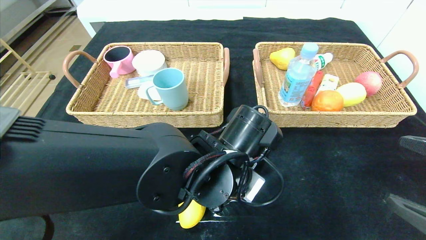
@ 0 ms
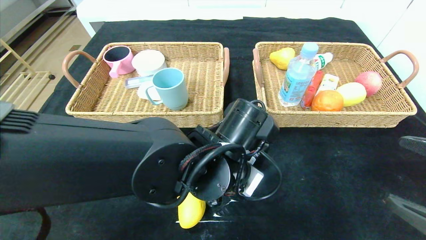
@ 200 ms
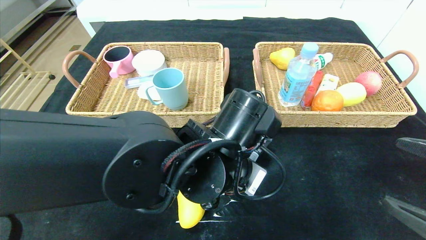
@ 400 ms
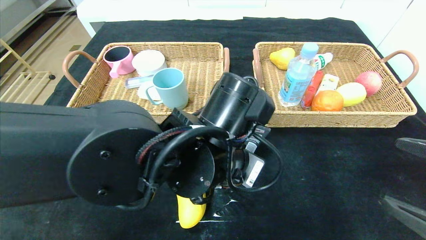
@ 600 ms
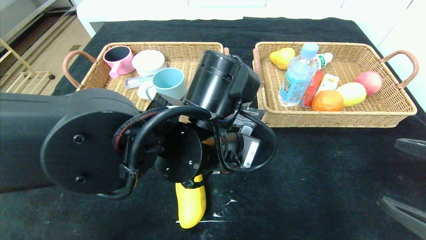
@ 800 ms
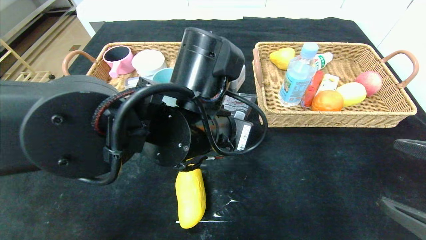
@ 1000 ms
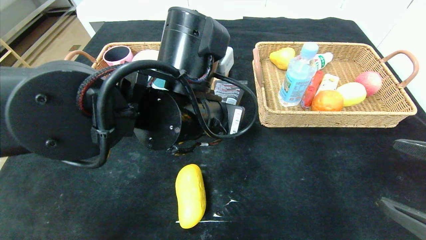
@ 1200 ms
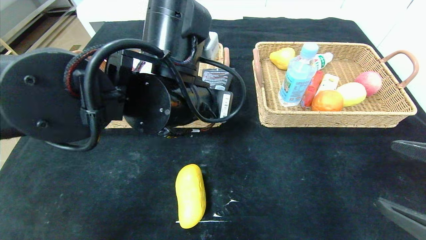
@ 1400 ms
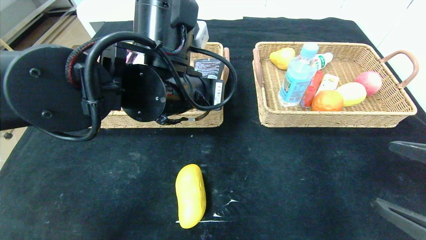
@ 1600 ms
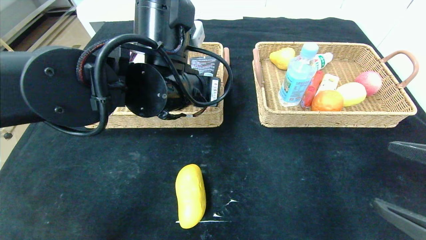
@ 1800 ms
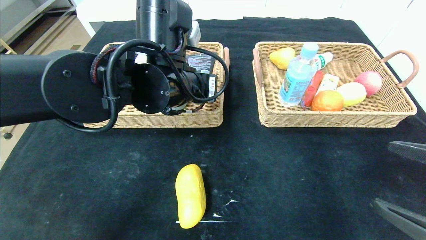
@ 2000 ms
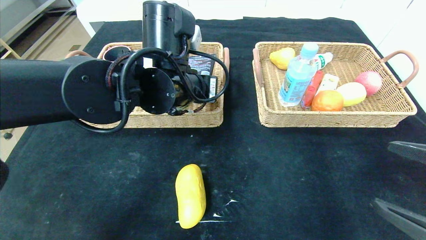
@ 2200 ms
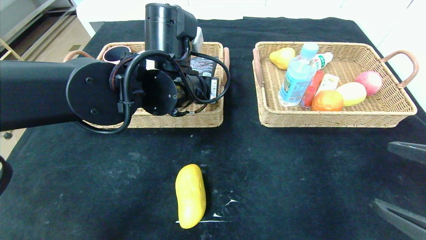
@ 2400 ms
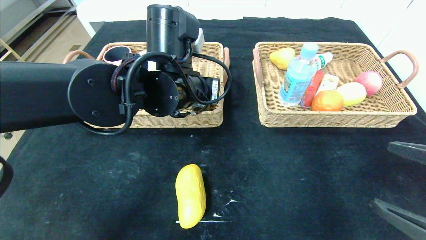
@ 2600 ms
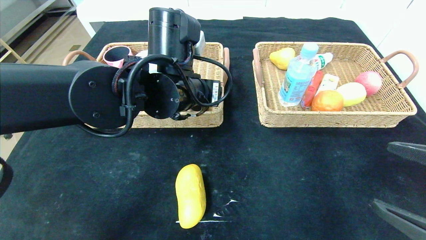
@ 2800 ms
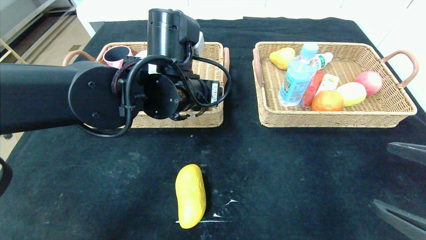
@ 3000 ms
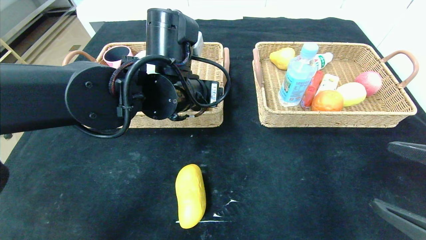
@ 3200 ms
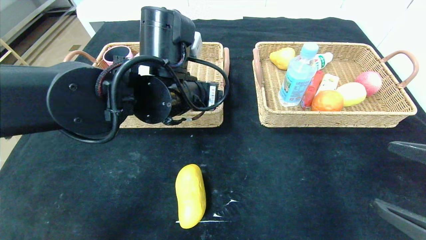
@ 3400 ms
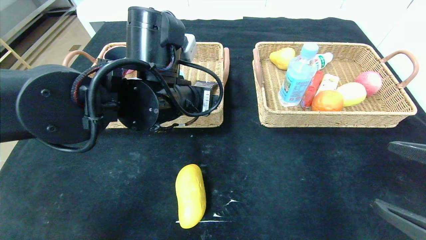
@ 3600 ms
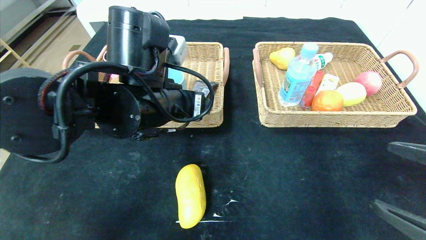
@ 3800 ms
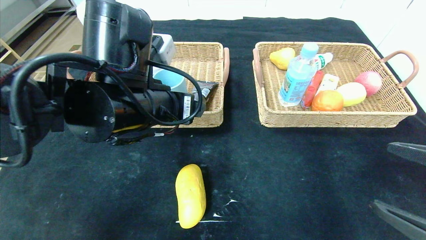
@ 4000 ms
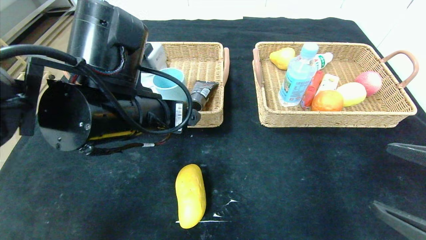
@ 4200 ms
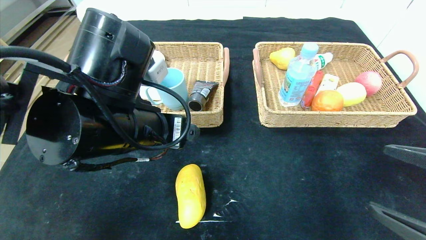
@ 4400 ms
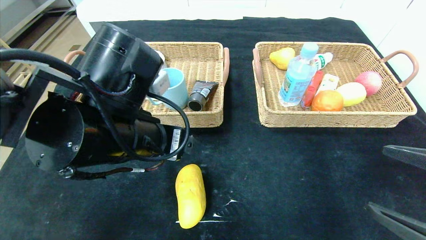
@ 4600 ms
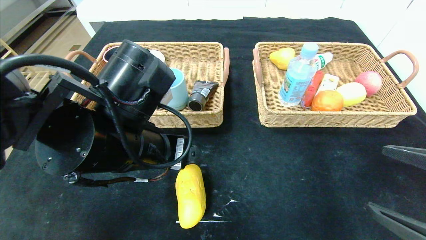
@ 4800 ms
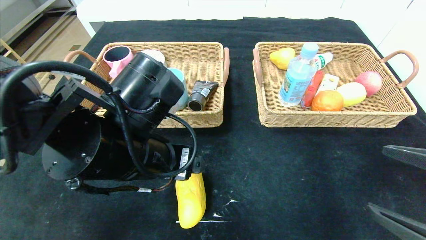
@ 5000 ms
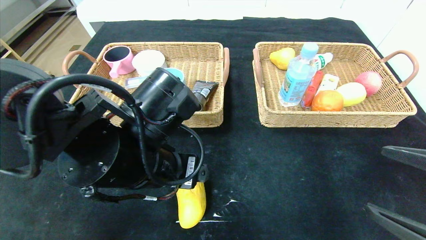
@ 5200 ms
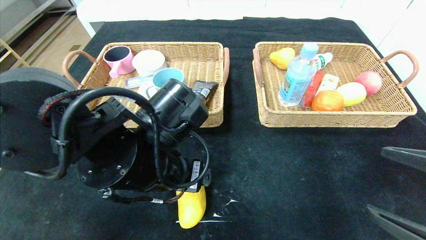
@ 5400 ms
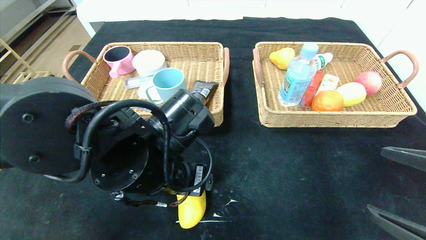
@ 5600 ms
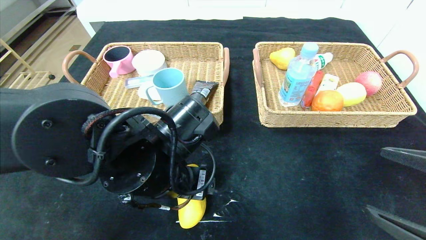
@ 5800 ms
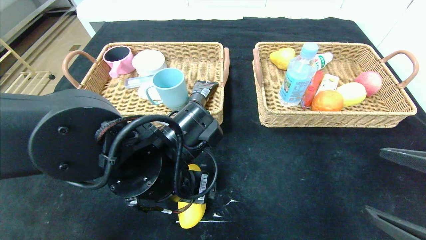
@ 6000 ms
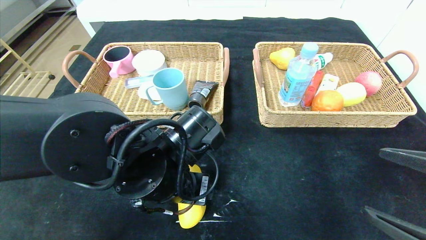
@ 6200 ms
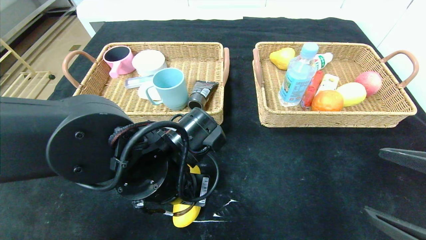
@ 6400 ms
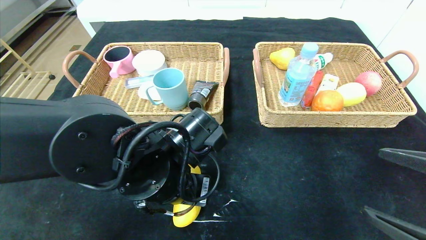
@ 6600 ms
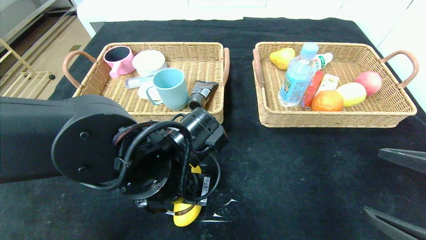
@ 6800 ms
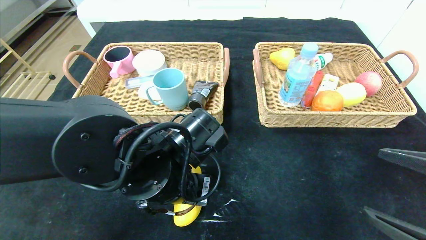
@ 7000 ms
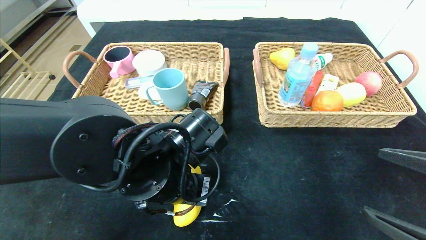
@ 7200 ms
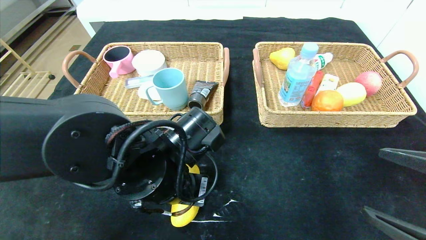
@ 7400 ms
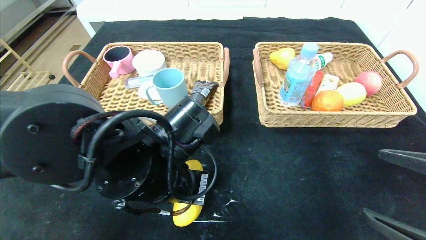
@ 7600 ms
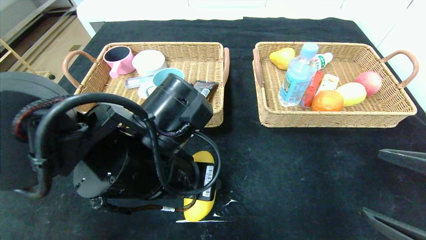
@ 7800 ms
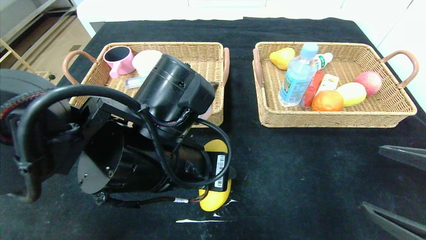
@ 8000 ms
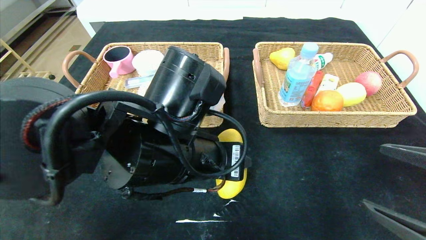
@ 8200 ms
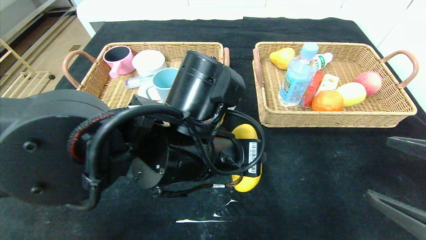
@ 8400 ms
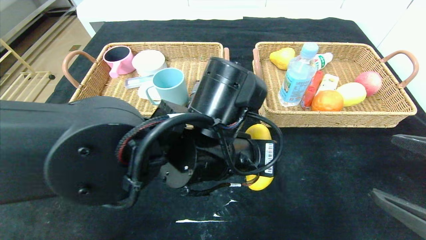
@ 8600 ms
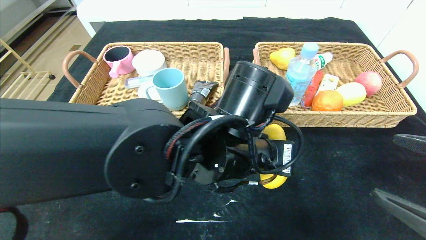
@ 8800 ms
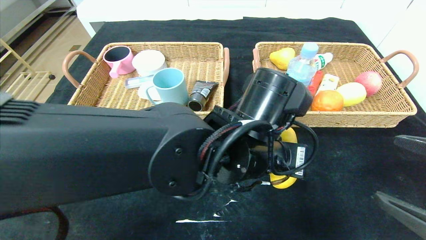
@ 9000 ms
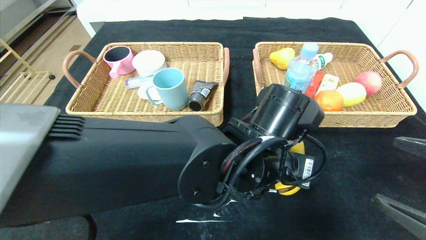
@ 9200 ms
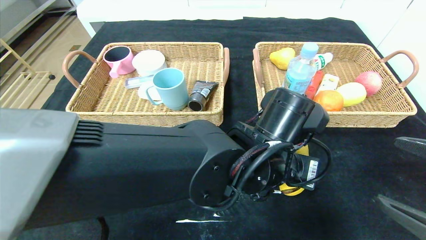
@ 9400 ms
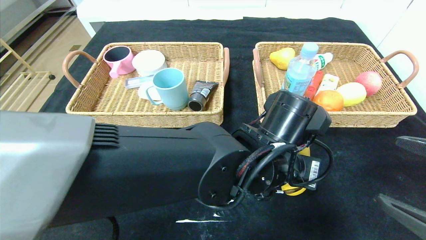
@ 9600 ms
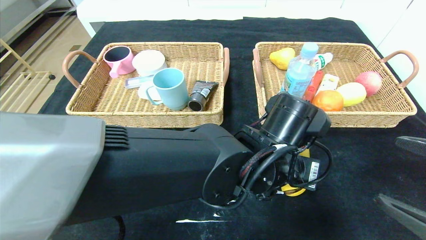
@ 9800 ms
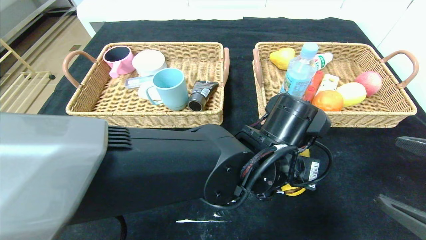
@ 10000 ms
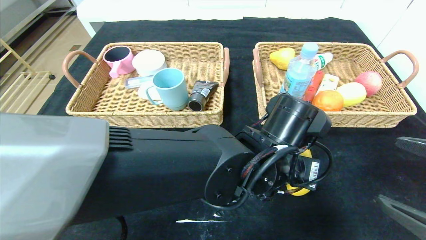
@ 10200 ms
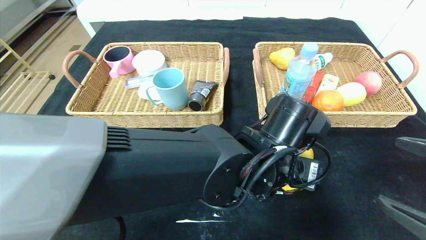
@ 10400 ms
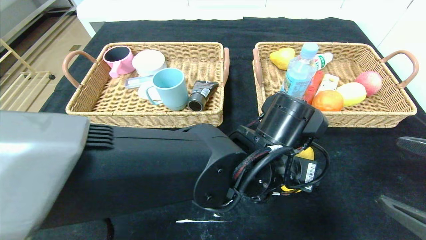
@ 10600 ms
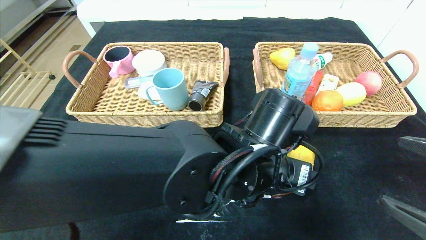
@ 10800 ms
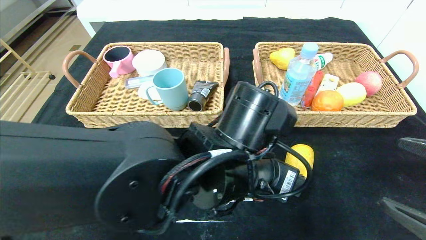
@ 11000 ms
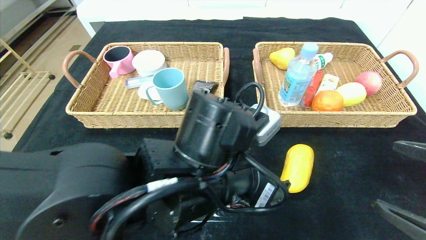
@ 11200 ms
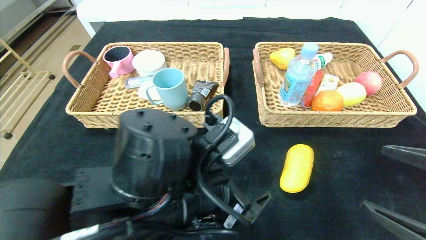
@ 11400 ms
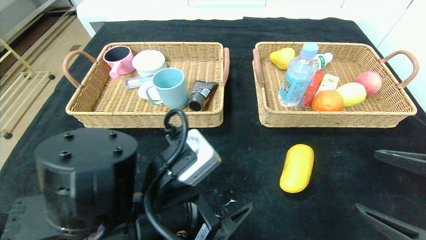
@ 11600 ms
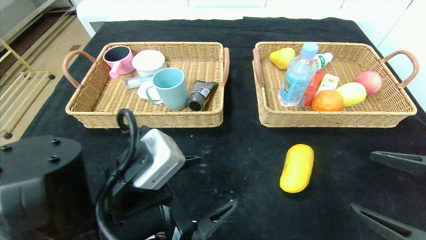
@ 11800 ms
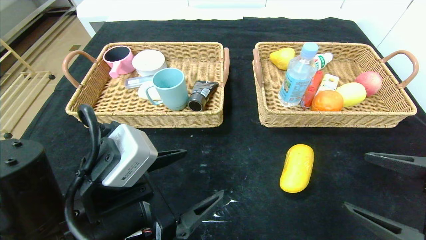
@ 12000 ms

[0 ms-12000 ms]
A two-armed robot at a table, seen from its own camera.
Step, 0 ms to 3000 ms: Grasp the soft cleanser and put it in the left basket.
Step, 3200 ms to 11000 ms: Place the mango in the center of the table.
0 ms to 1600 ms: The left gripper shifts roughly 15 cm upward and to the left.
1600 ms to 3000 ms: The left gripper opens its fingers.
3000 ms to 4400 ms: The left gripper travels backward by about 10 cm.
4400 ms to 6000 ms: The left gripper goes roughly 10 cm downward.
6000 ms to 7600 ms: The left gripper closes its fingers.
7600 ms to 9000 ms: The left gripper goes about 15 cm to the right.
10400 ms to 12000 ms: The left gripper heads to the left and backward, covering roughly 25 cm.

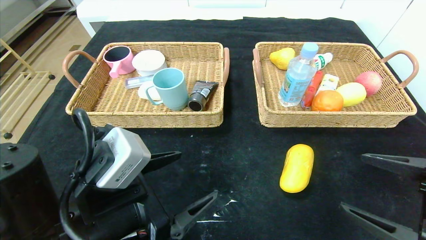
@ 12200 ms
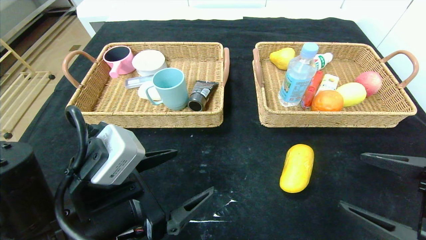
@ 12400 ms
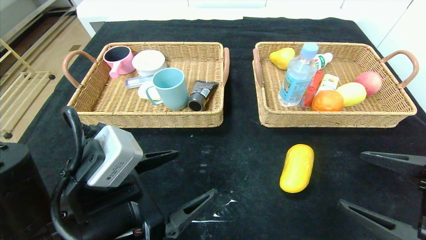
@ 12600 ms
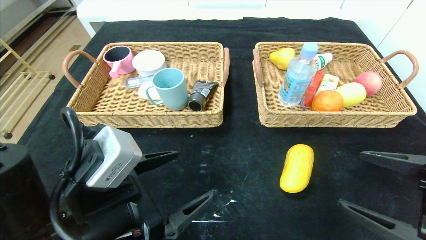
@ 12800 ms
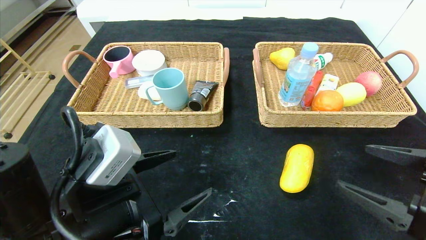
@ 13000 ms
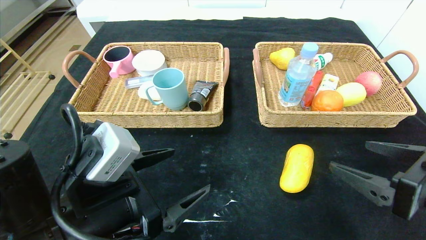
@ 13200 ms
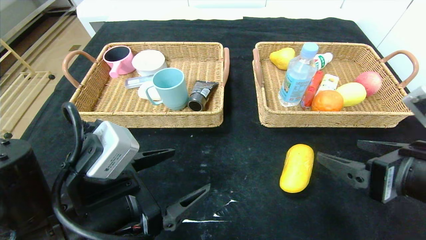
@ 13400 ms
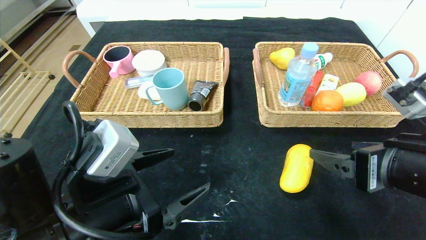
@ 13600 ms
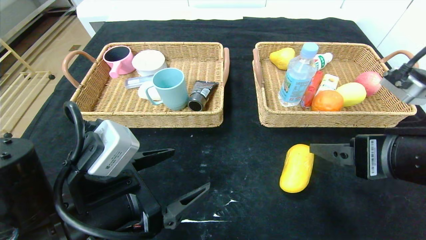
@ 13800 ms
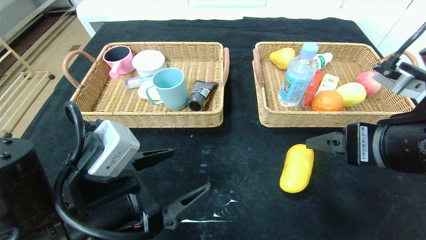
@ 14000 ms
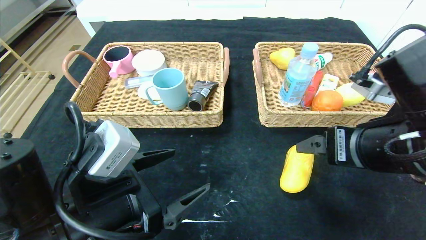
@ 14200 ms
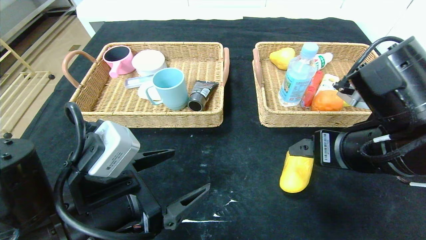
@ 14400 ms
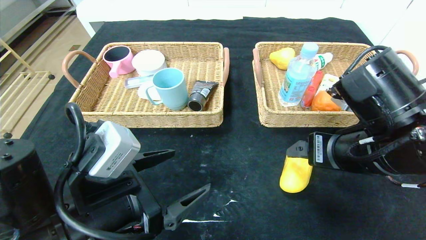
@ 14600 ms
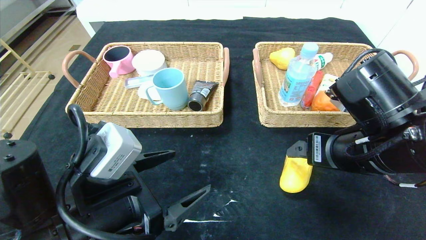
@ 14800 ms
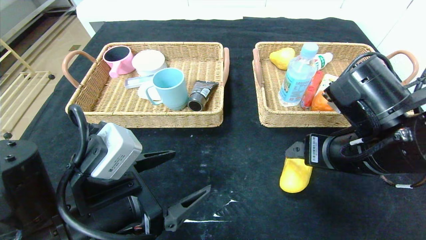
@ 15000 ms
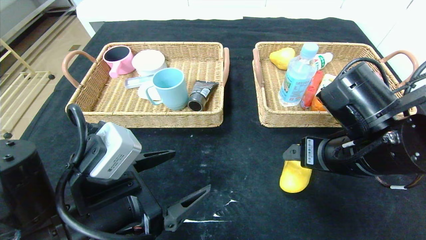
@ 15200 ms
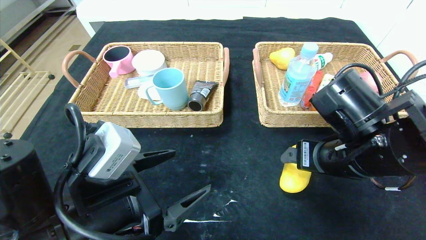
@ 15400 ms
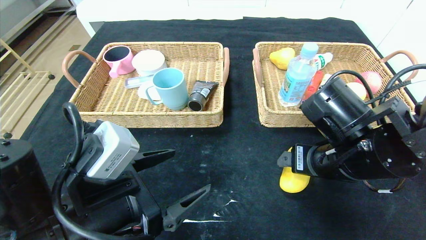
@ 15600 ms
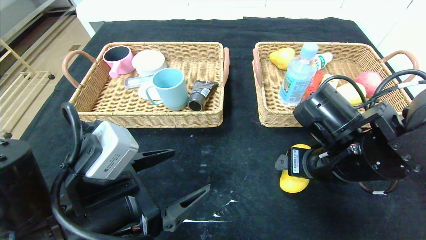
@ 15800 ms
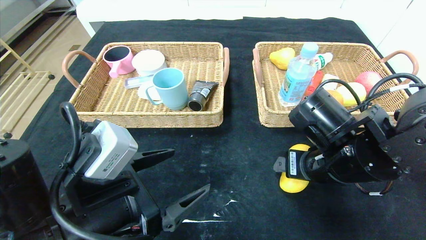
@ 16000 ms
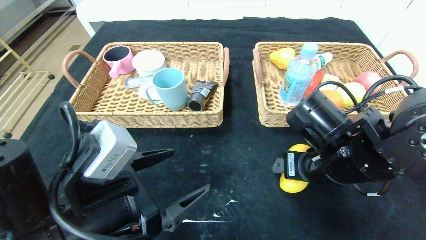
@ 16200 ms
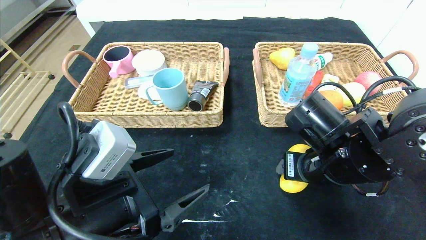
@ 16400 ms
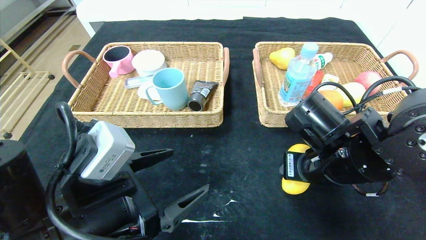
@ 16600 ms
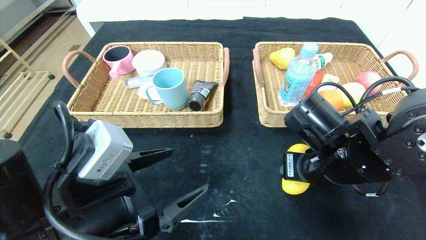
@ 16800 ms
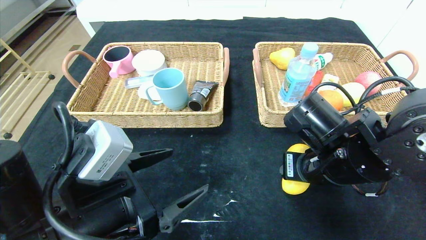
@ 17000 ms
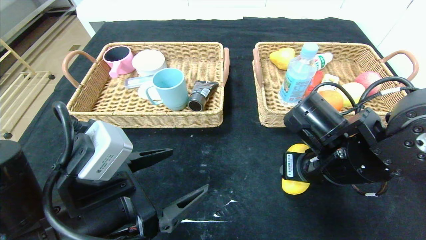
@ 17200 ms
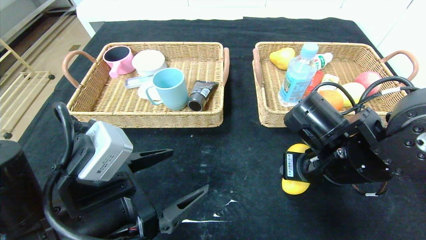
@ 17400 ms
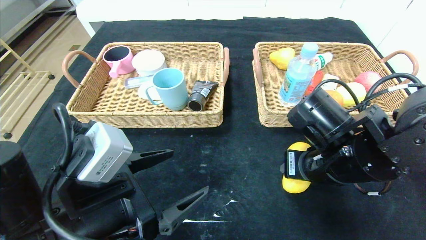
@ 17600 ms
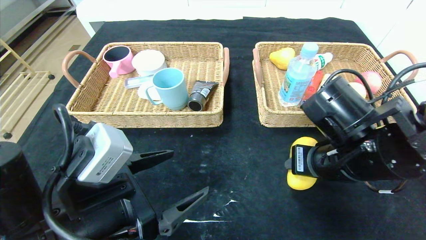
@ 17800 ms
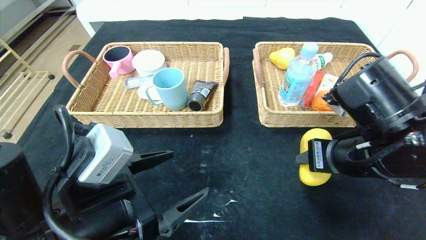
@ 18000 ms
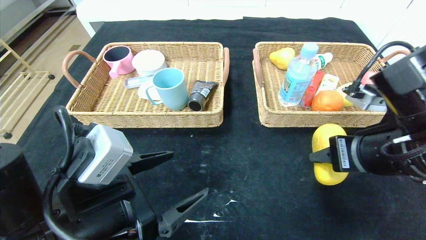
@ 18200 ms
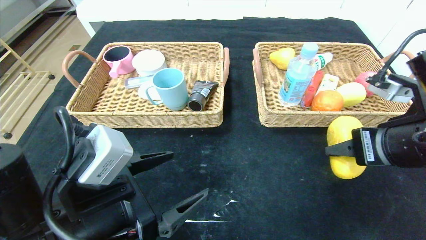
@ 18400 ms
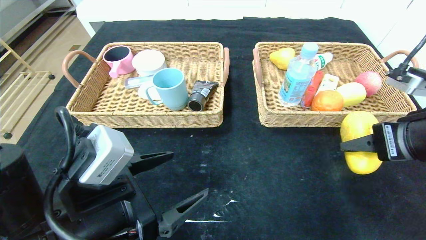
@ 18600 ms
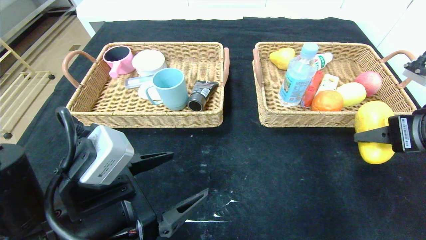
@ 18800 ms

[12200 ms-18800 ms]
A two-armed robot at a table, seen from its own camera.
12200 ms to 13800 ms: The right gripper moves upward and to the left, some 10 cm.
13800 ms to 15400 ms: The right gripper is displaced forward by approximately 5 cm.
15400 ms to 17200 ms: The right gripper closes up.
17200 ms to 18800 ms: The right gripper is displaced to the right and upward by approximately 15 cm.
